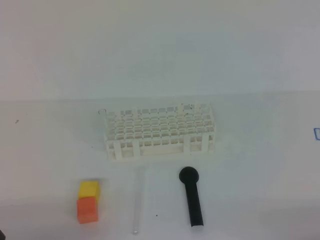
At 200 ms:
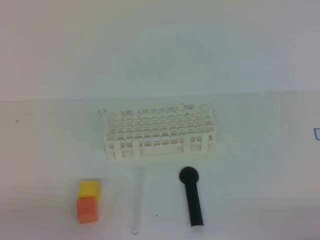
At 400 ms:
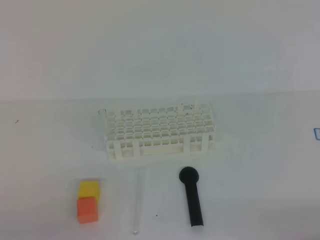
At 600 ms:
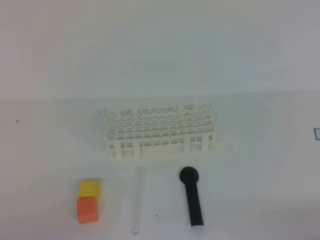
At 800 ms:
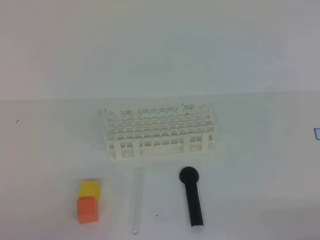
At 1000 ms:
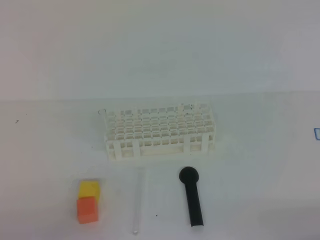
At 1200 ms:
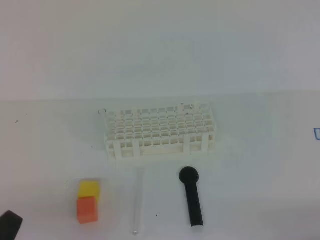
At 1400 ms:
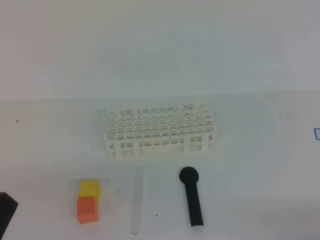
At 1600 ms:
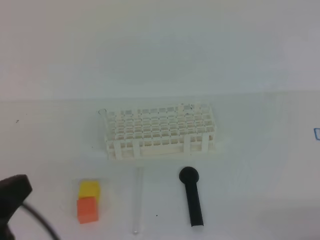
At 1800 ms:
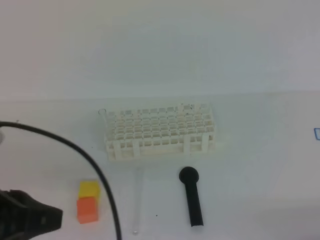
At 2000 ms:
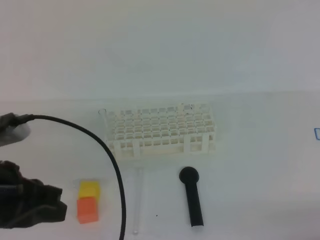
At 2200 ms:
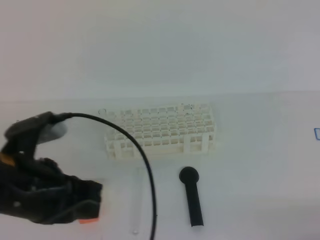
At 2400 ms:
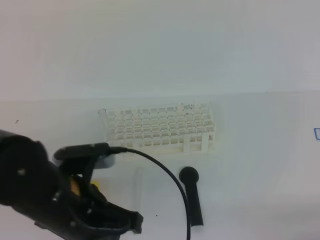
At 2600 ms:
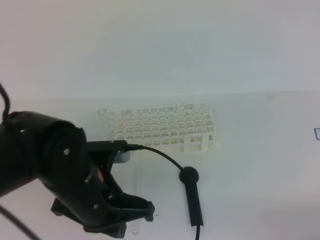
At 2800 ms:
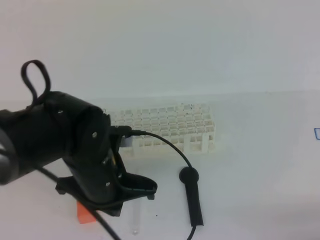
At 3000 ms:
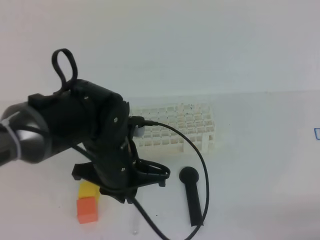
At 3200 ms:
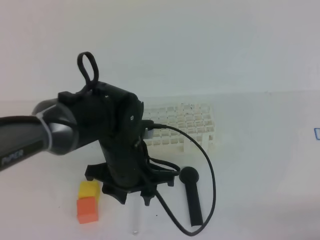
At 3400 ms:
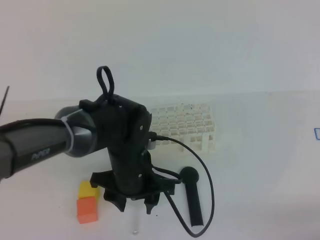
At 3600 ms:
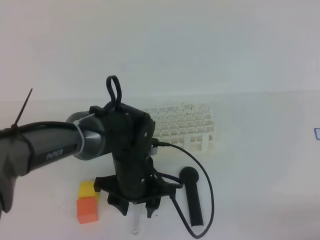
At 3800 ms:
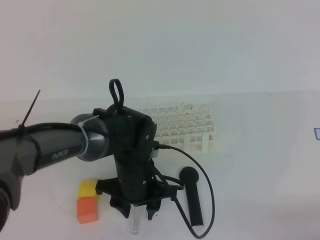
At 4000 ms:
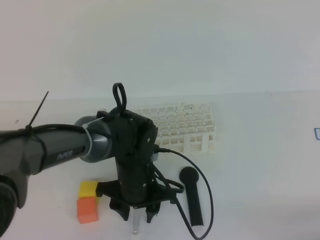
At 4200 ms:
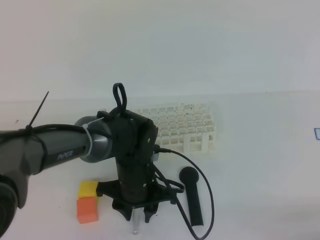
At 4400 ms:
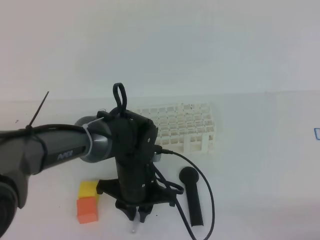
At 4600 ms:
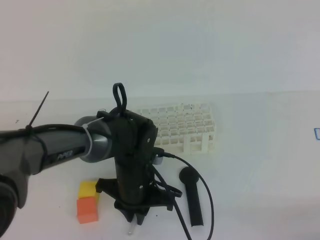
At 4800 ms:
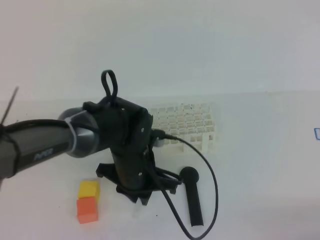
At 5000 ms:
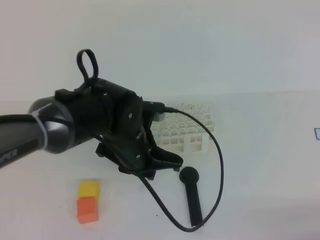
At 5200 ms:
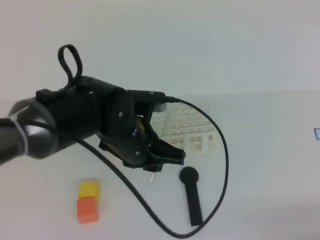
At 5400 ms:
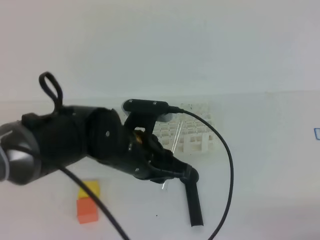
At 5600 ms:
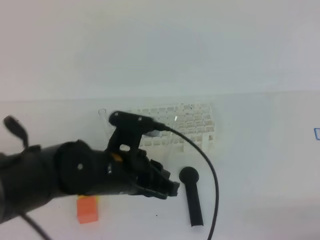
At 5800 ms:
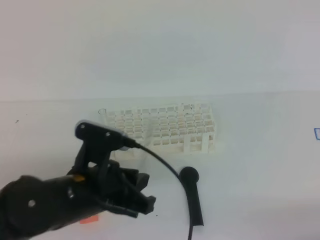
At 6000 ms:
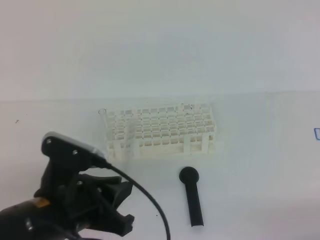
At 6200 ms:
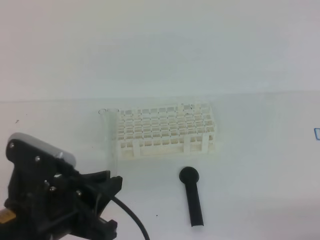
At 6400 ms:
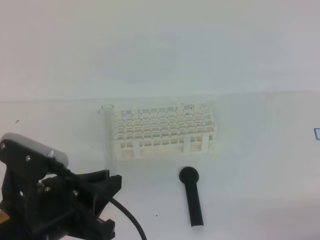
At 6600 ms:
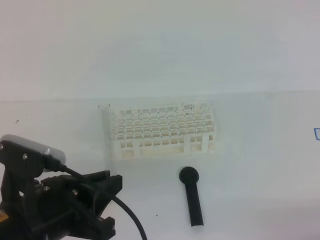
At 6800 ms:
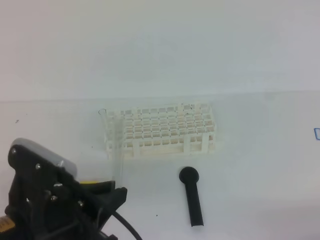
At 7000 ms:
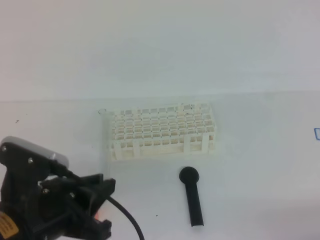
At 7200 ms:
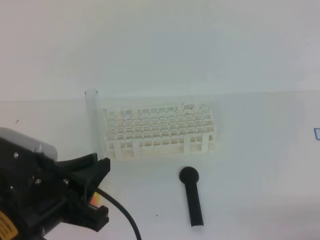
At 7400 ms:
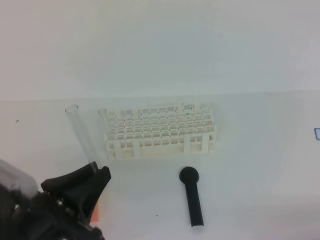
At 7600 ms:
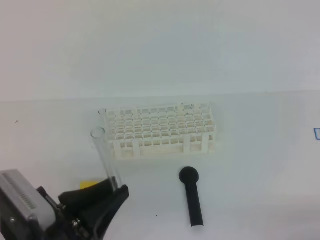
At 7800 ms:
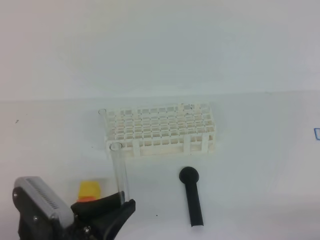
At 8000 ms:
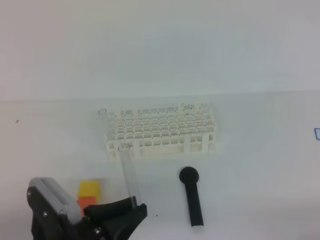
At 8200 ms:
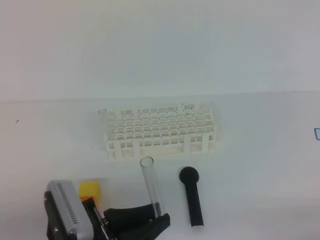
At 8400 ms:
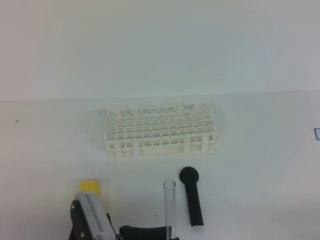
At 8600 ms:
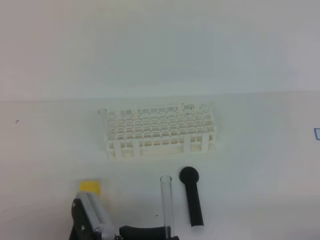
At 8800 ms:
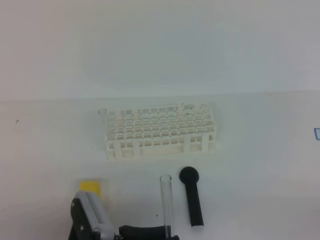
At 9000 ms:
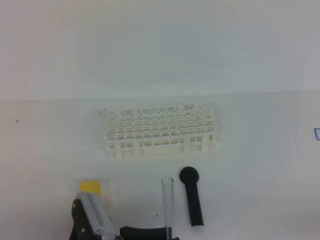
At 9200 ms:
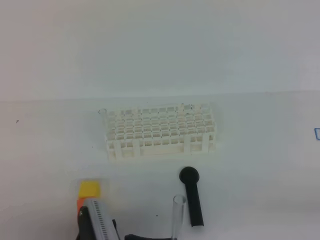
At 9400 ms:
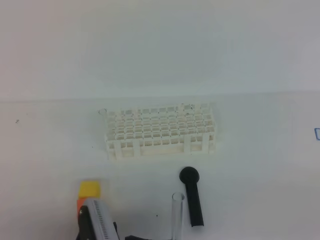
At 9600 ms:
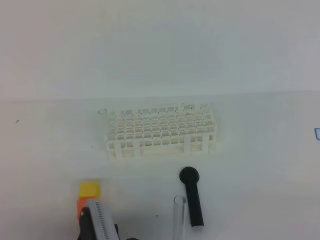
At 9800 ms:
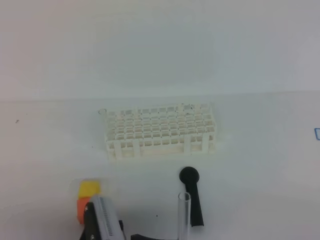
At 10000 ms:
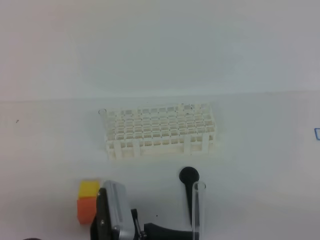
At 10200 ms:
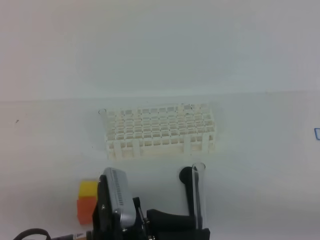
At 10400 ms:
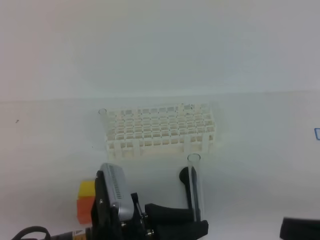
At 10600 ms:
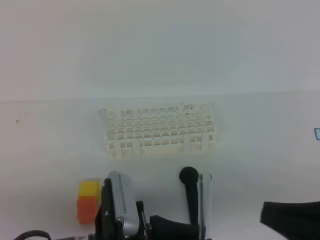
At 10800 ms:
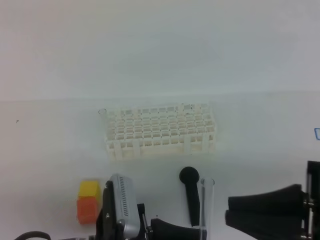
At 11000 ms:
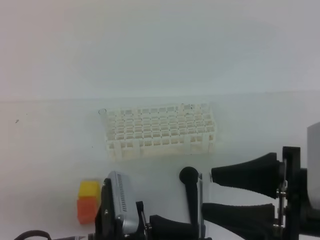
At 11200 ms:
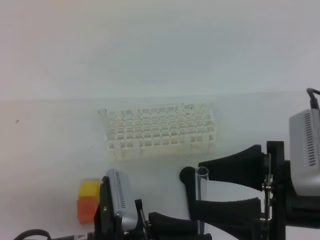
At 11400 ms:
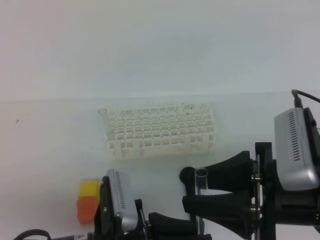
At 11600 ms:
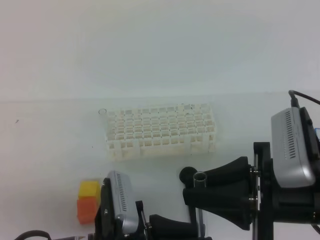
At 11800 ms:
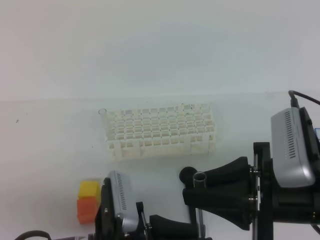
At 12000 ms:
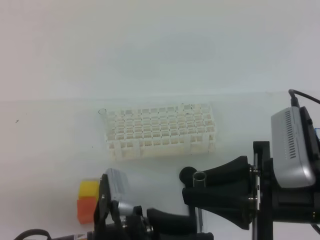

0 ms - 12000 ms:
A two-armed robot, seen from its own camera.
0 ms - 1600 ms: The left gripper goes approximately 10 cm upward.
1600 ms - 3000 ms: The left gripper goes some 25 cm forward, to the right and downward.
3000 ms - 4400 ms: The left gripper moves downward, some 10 cm, and opens, then closes once more.
4400 ms - 6000 ms: The left gripper heads backward, upward and to the left, covering approximately 20 cm.
6000 ms - 7600 ms: The left gripper is displaced backward by approximately 5 cm.
7600 ms - 9000 ms: The left gripper shifts roughly 5 cm downward.
9000 ms - 10400 ms: The right gripper shifts approximately 10 cm to the left and upward.
10400 ms - 12000 ms: The right gripper goes roughly 15 cm forward and to the left, and opens. The left gripper opens up.

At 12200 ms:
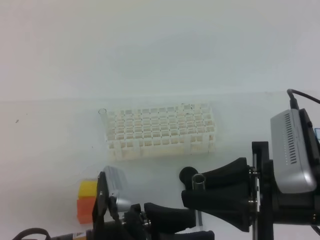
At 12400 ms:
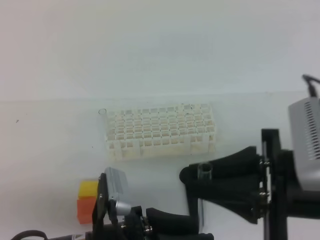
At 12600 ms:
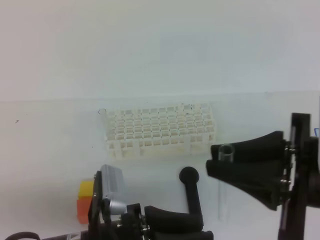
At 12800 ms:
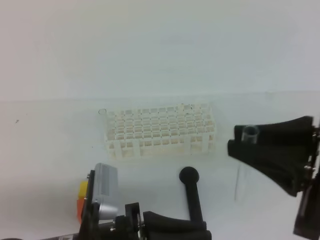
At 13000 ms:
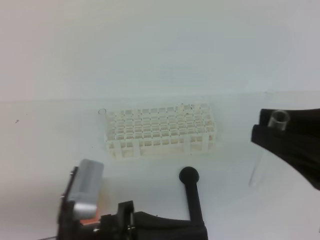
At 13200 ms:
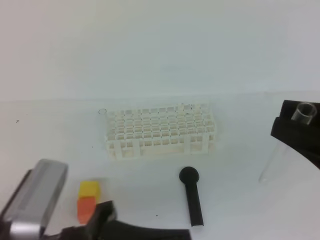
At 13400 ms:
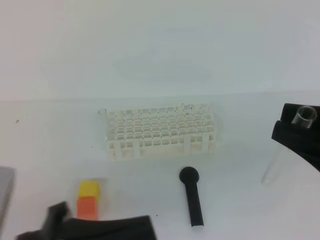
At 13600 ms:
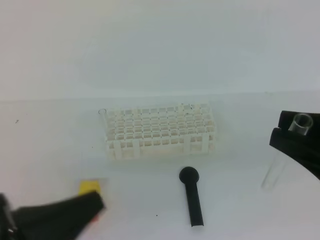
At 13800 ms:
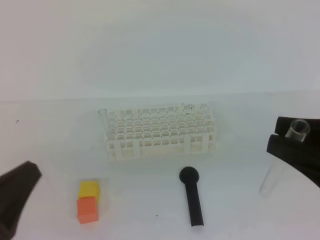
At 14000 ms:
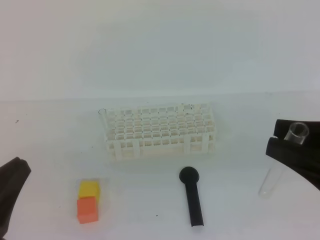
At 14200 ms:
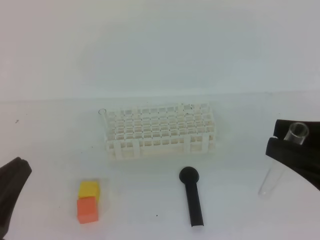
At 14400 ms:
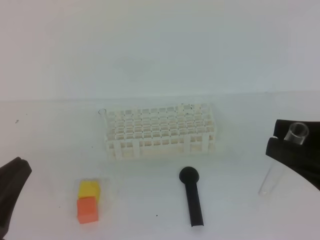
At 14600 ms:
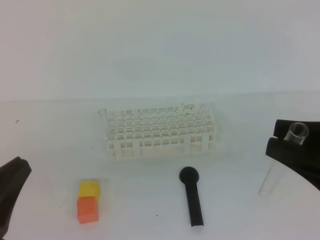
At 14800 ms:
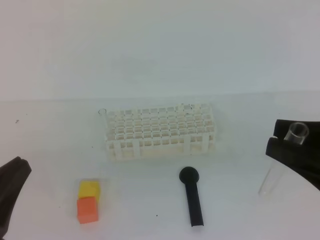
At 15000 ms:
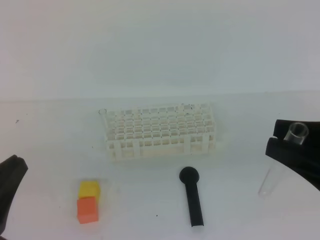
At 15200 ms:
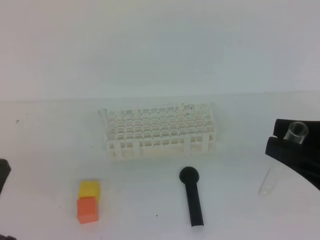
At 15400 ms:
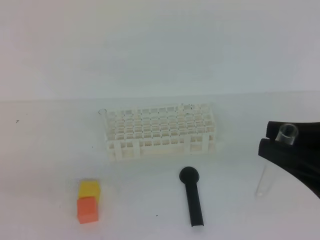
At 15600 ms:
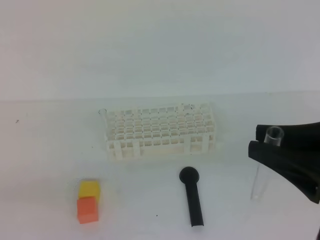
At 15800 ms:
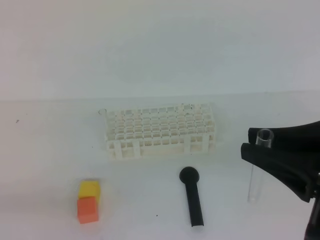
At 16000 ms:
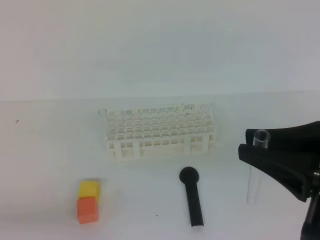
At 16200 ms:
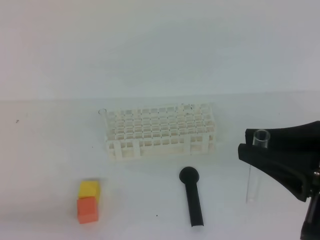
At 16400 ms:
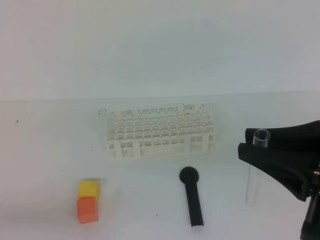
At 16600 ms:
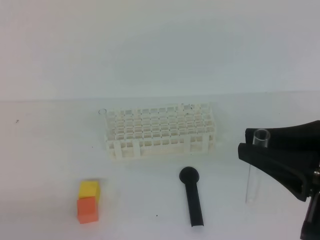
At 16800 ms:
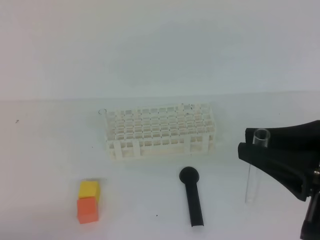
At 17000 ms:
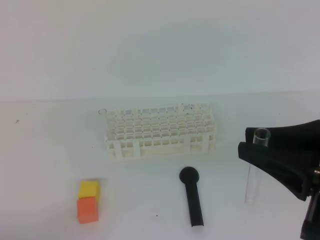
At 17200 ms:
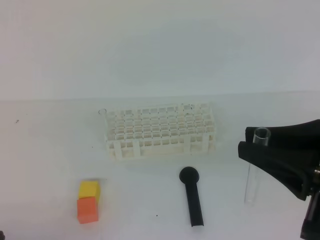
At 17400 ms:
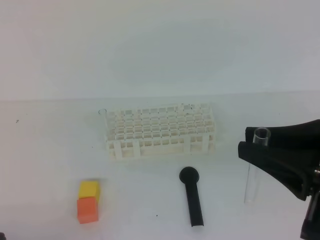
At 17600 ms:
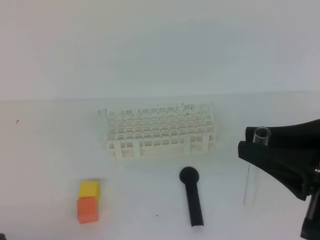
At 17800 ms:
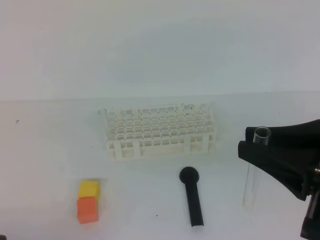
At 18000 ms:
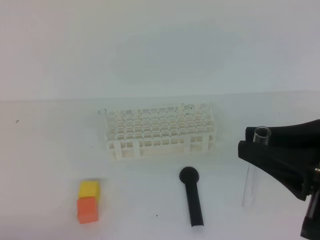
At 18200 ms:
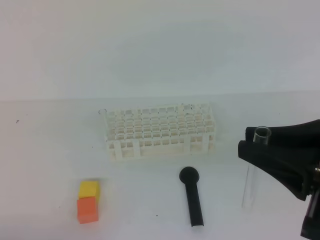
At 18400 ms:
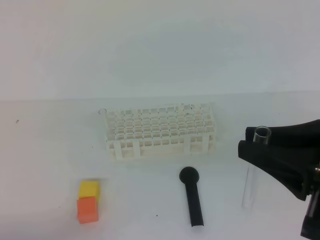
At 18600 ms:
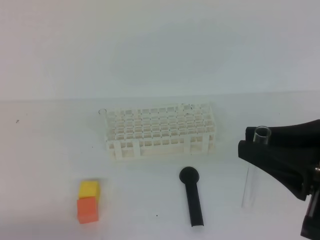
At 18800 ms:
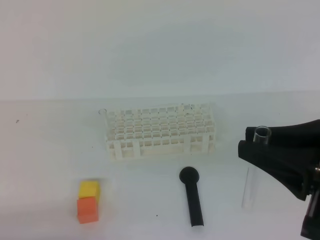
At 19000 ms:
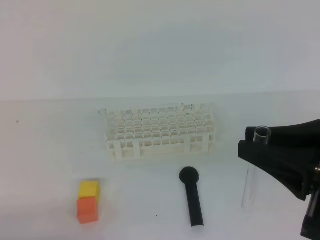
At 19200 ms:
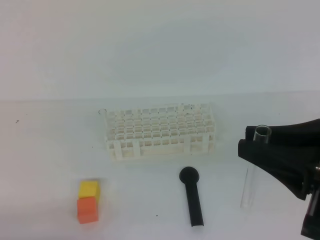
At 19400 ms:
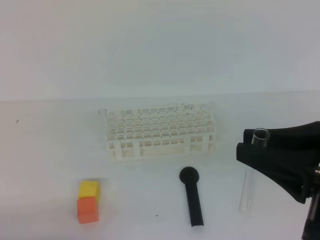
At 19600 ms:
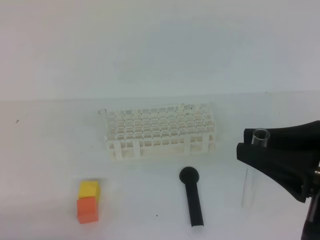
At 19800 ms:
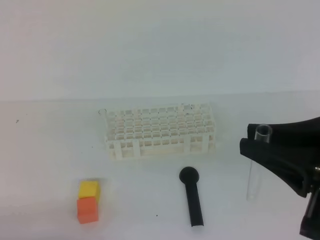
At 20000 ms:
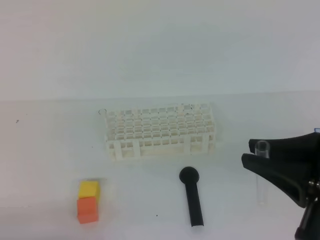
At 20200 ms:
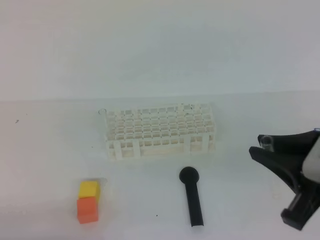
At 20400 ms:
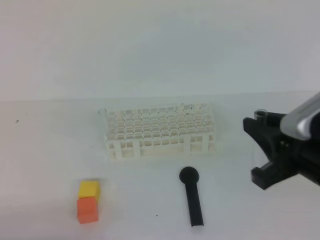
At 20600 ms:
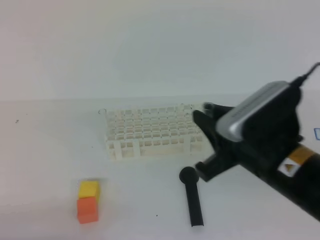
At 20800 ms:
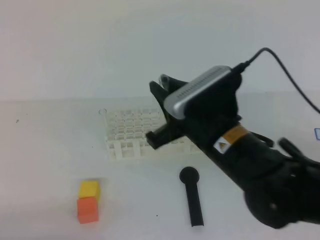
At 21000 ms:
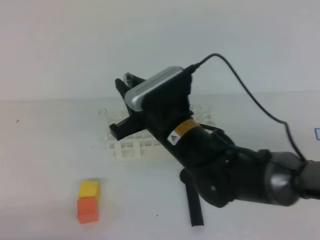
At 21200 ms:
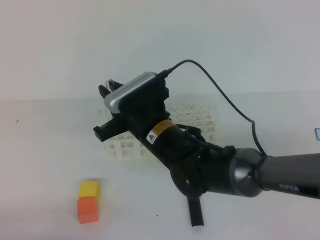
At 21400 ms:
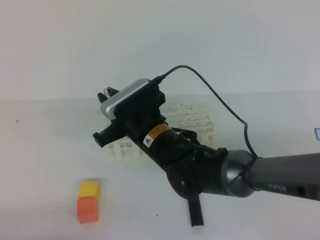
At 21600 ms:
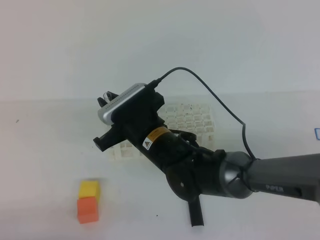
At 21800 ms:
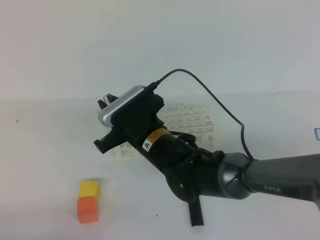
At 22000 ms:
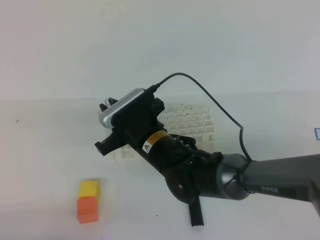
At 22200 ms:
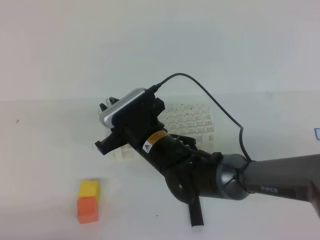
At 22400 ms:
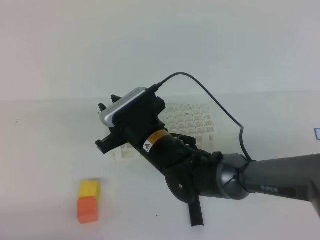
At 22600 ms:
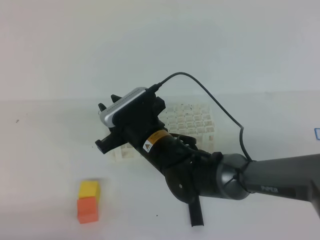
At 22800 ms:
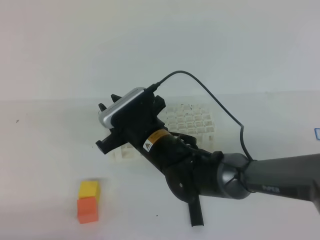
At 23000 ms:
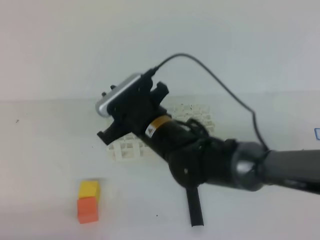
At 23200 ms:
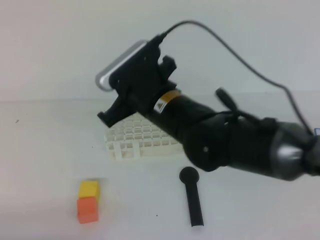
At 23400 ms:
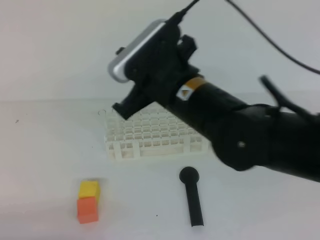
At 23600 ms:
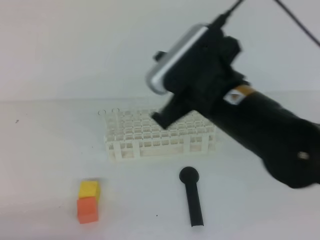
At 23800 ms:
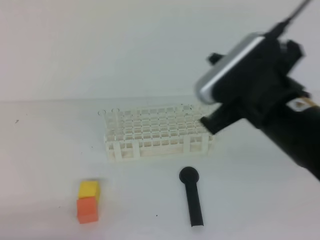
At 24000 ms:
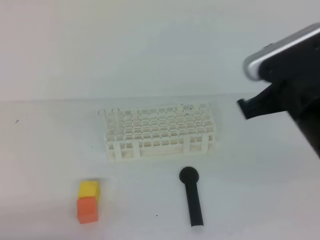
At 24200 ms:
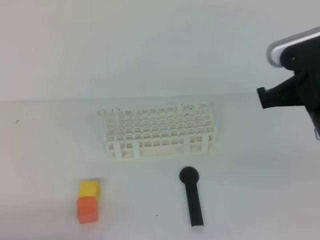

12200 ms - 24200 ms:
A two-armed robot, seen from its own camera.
12200 ms - 13800 ms: The left gripper goes roughly 15 cm to the left, upward and backward, and closes up; the right gripper shifts some 10 cm upward and to the right.
19800 ms - 21200 ms: The right gripper heads to the left, forward and downward, covering about 30 cm.
21200 ms - 22600 ms: The right gripper opens its fingers.
22600 ms - 24200 ms: The right gripper moves to the right, upward and backward, approximately 25 cm, and closes its fingers.
